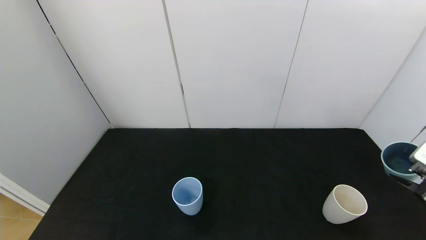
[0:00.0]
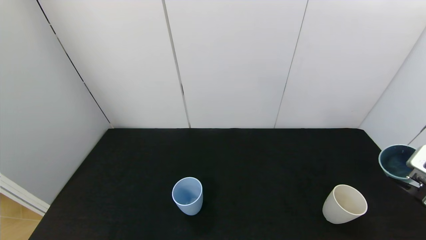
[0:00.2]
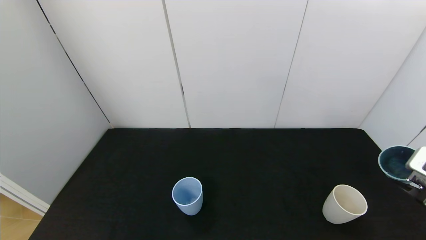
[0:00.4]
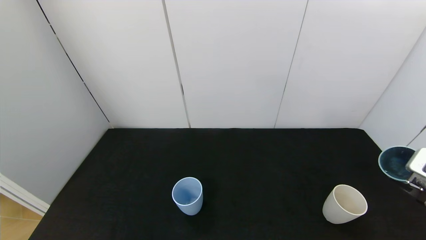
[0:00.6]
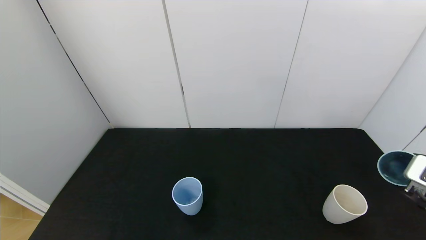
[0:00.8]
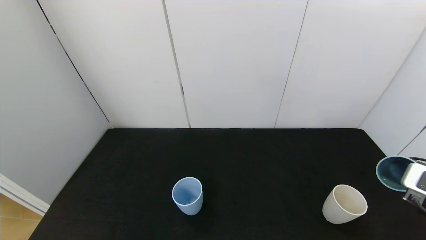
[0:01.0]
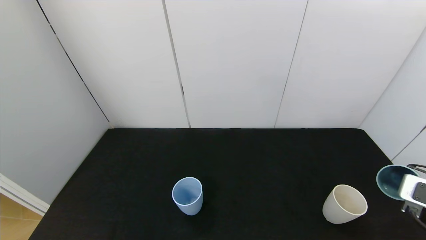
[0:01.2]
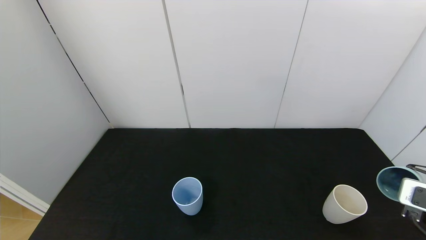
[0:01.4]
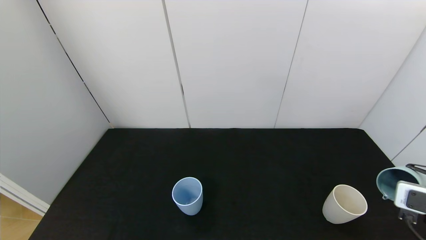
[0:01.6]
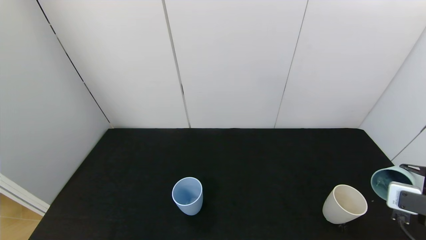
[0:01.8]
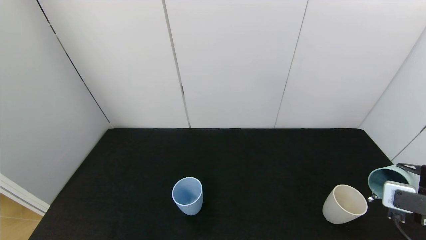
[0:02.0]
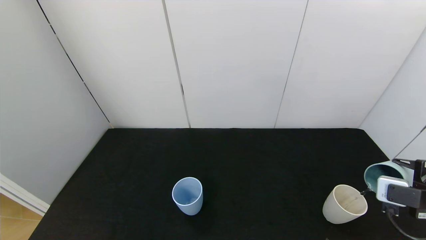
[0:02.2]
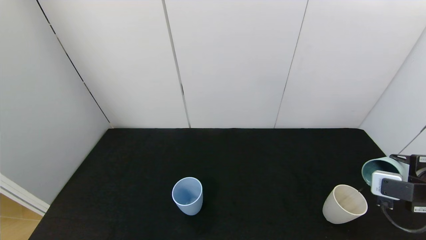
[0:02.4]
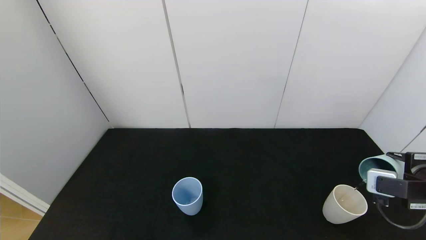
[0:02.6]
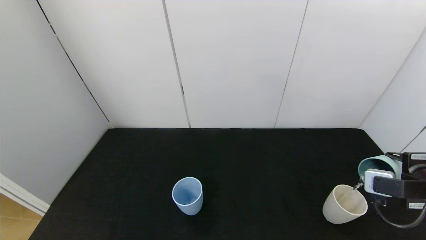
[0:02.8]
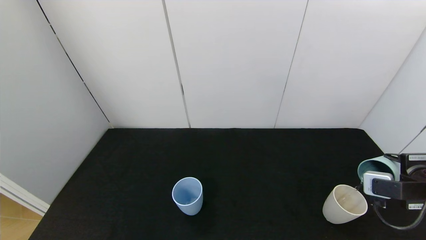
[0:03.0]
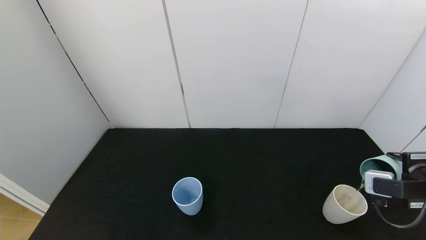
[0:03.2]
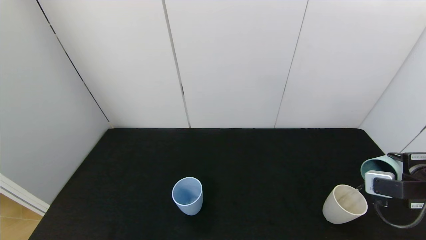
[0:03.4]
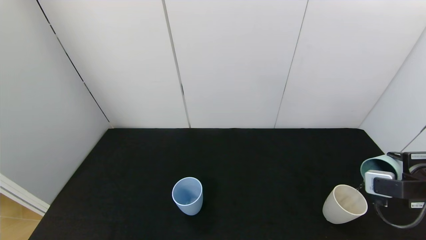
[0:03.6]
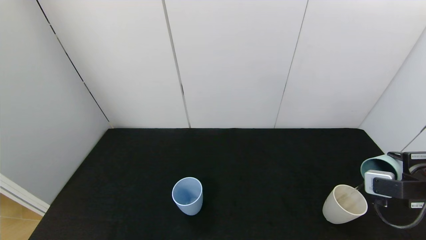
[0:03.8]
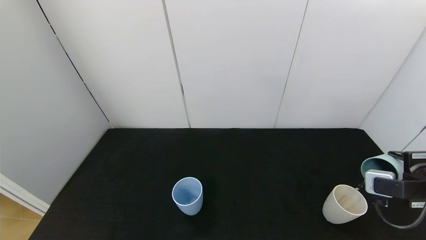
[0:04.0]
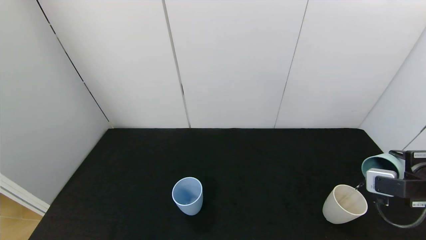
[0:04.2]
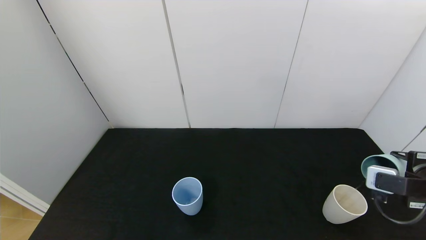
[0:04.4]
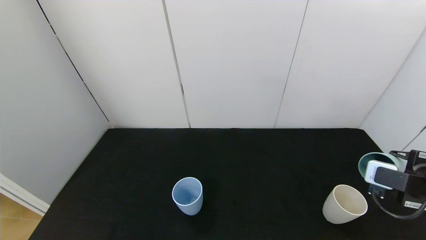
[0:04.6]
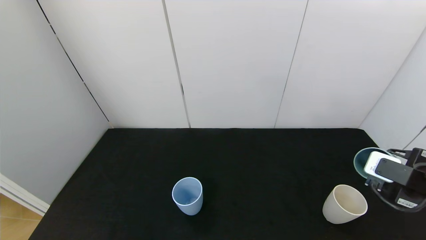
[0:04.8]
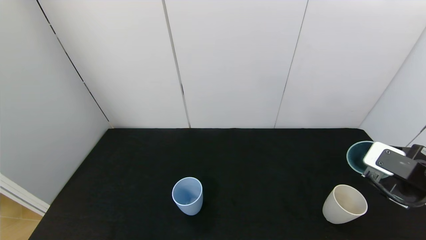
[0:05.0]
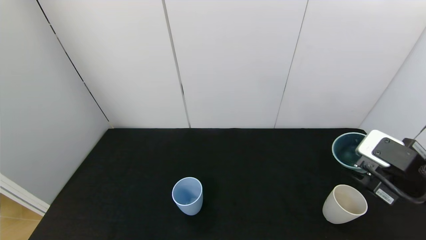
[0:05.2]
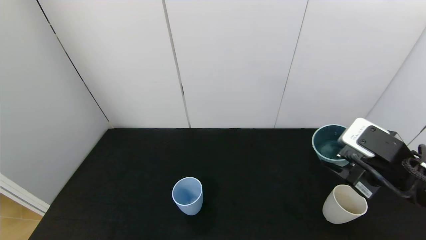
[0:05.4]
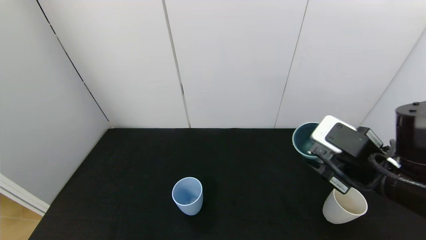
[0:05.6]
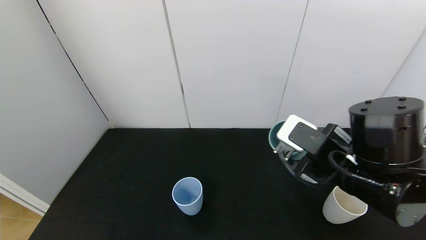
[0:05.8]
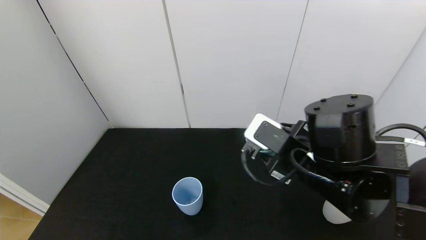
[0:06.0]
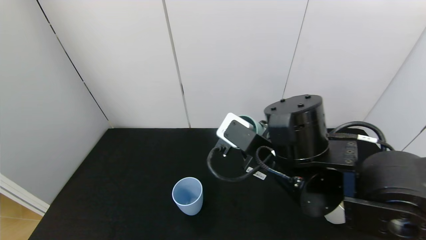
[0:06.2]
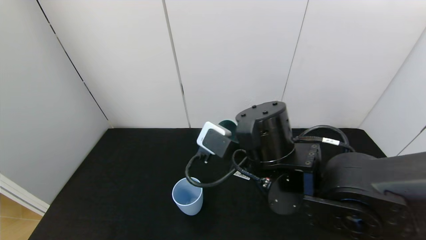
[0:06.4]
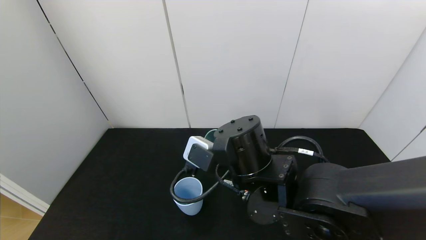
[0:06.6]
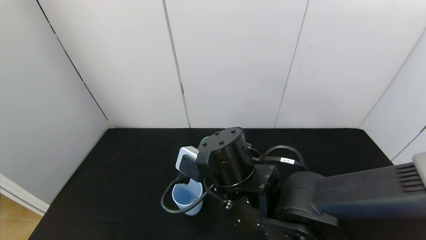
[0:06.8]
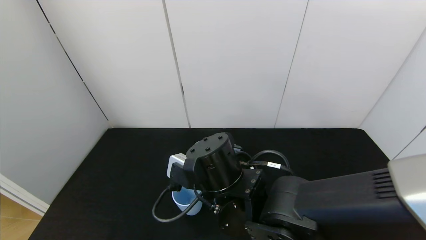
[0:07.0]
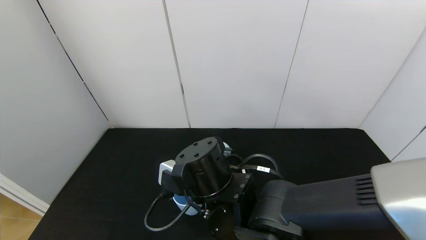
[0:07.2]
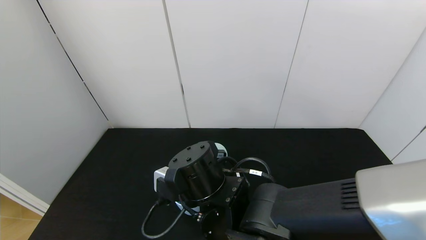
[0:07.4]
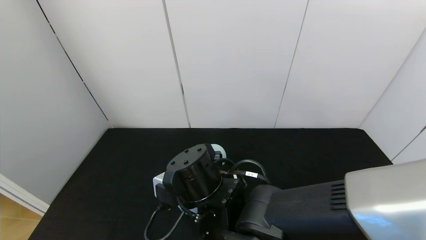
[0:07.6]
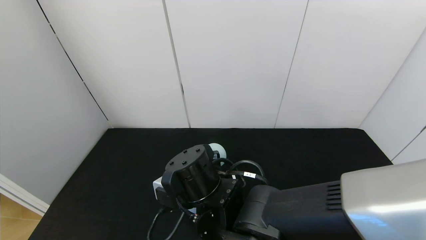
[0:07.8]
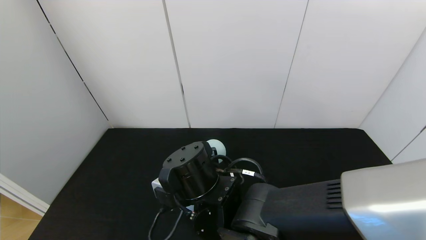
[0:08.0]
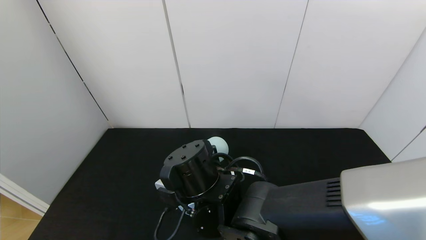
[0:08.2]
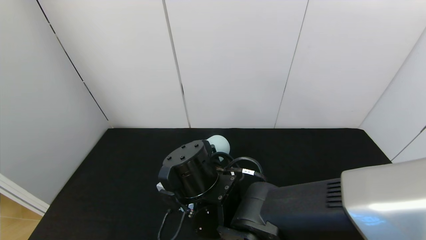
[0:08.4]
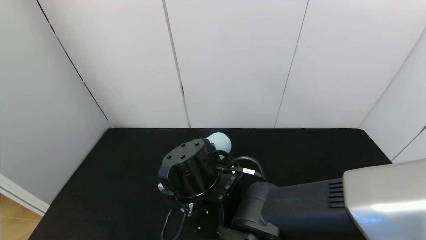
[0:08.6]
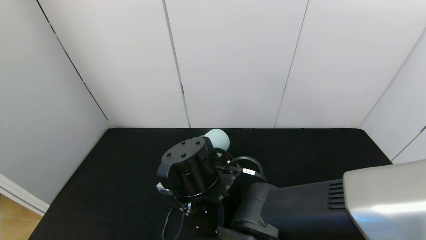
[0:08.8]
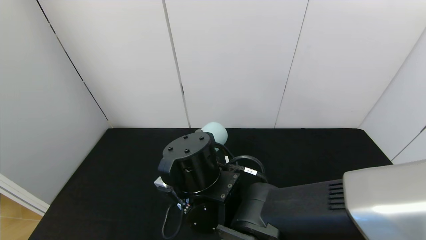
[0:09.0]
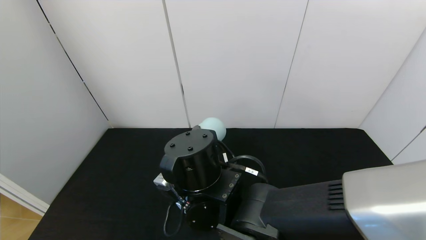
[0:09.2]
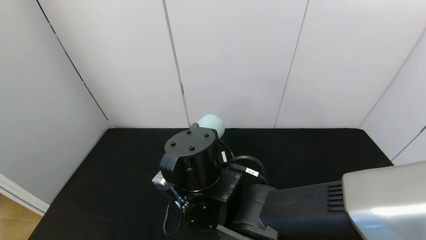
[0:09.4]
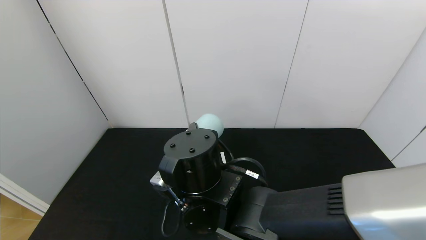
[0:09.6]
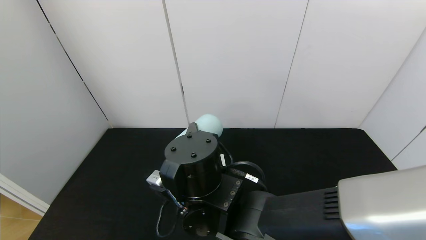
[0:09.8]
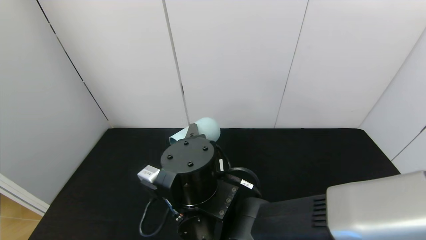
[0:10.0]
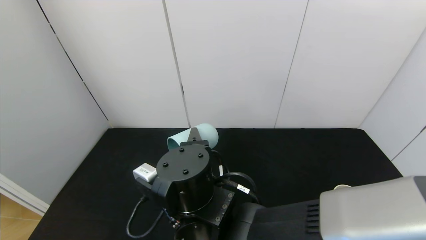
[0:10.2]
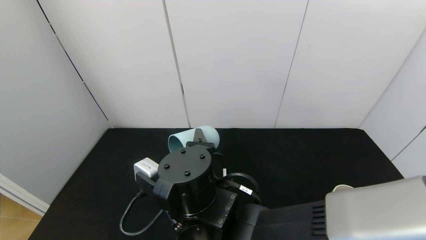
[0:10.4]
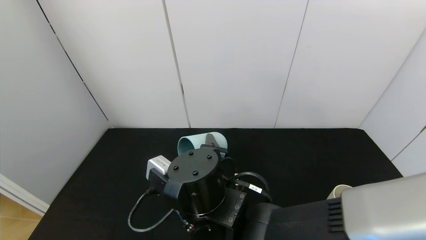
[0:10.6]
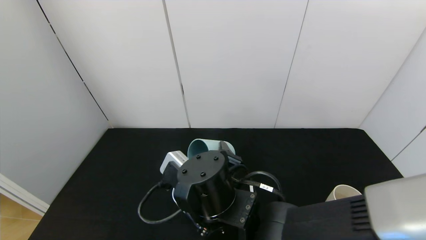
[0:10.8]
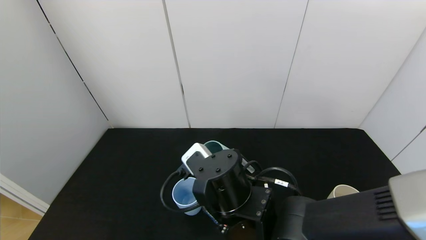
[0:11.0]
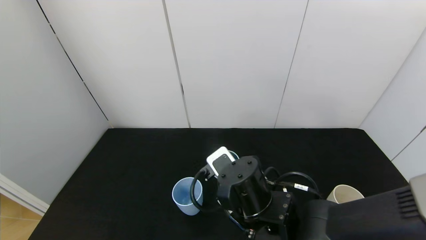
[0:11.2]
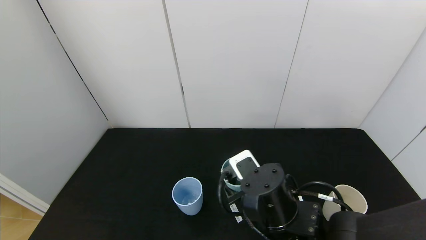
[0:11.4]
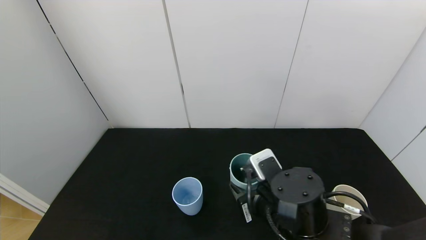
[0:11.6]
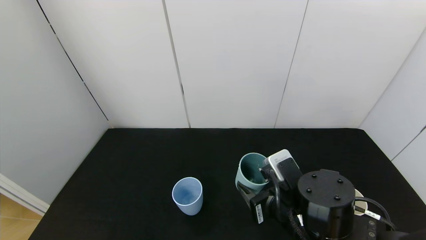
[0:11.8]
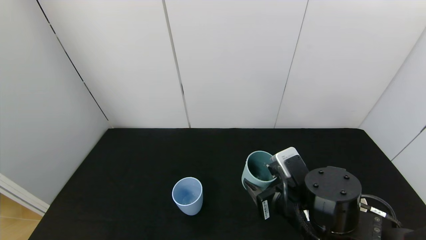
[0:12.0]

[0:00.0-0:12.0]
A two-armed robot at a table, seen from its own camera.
Task of the whole recording: use the gripper to pour the water into the other two cups on black table.
Step, 0:00.0 to 0:05.0: Pour water from green cup to white cup with the right gripper.
Step, 0:05.2 to 0:10.8: Pour water from green cup to blue cup with the right gripper.
0:01.6 to 0:03.0: The right gripper shifts by some 5 cm.
0:03.0 to 0:04.4: The grippers move only a little.
0:04.4 to 0:06.0: The right gripper heads to the left, covering some 25 cm.
0:06.0 to 0:07.6: The right gripper travels to the left and downward by roughly 15 cm.
0:10.4 to 0:12.0: The right gripper travels to the right by approximately 20 cm.

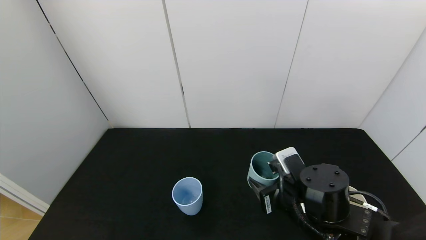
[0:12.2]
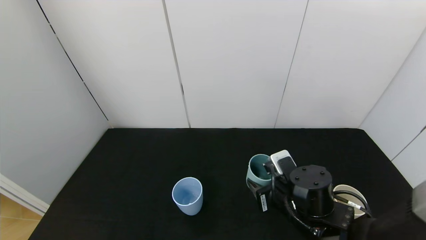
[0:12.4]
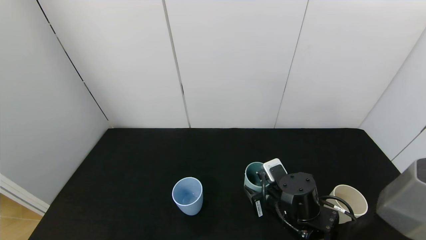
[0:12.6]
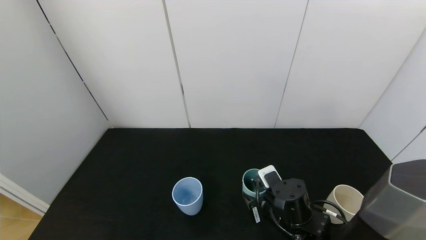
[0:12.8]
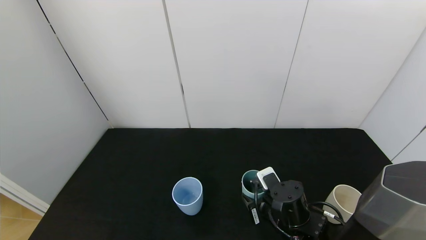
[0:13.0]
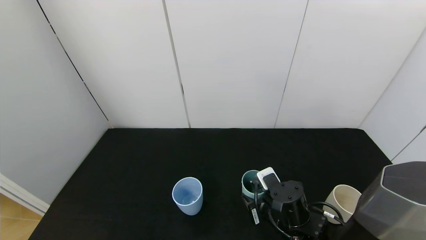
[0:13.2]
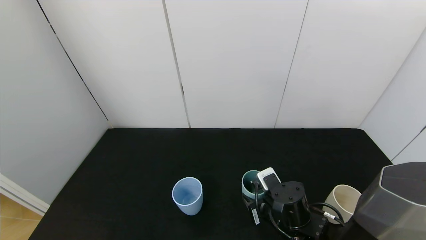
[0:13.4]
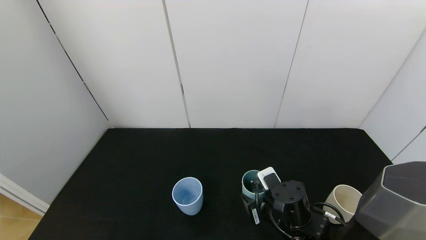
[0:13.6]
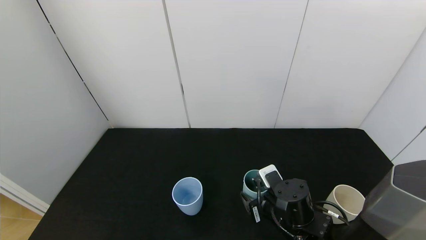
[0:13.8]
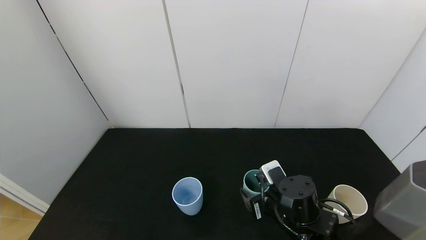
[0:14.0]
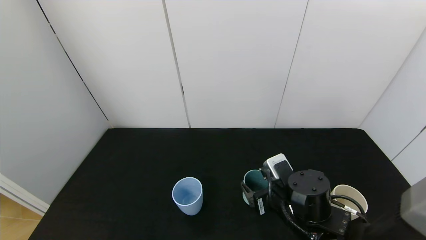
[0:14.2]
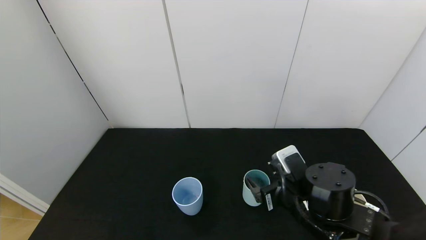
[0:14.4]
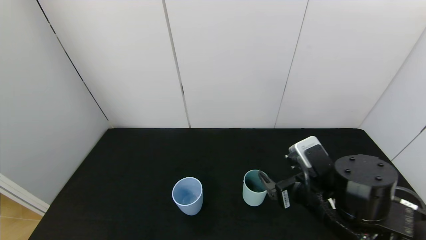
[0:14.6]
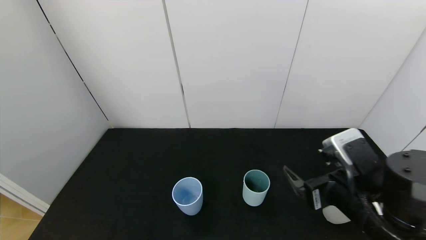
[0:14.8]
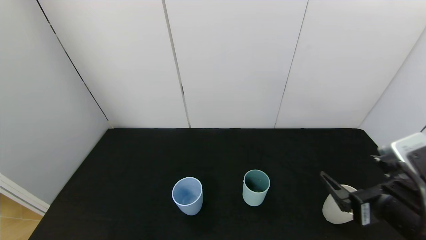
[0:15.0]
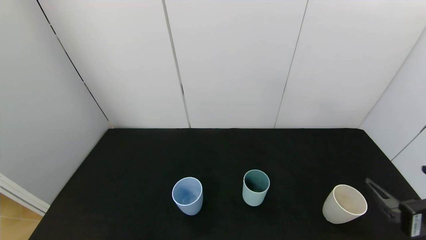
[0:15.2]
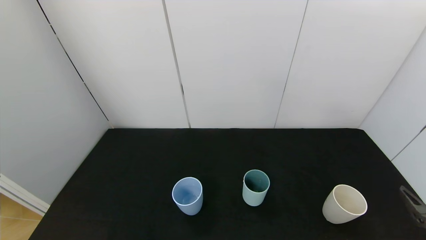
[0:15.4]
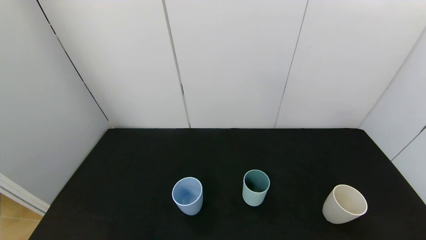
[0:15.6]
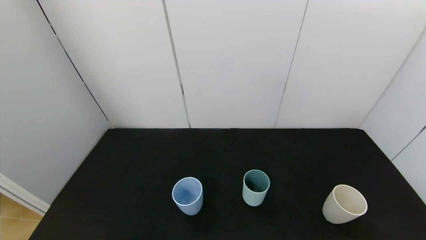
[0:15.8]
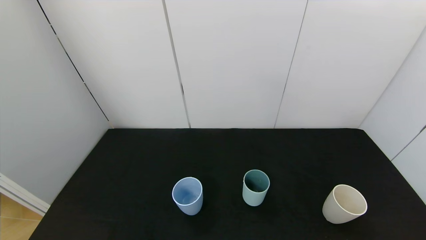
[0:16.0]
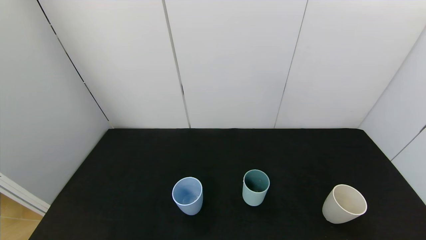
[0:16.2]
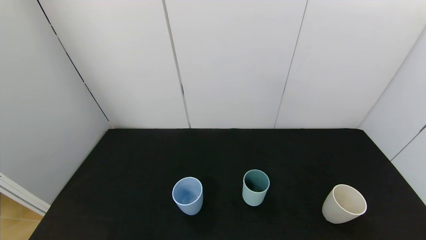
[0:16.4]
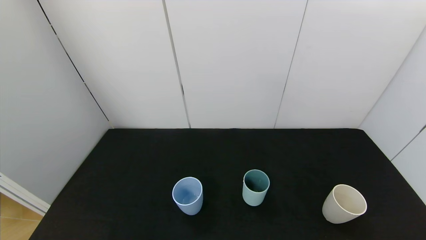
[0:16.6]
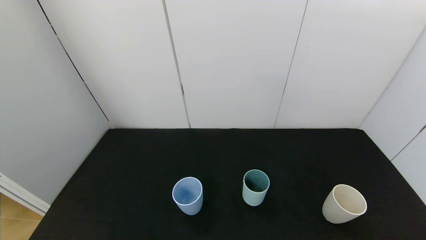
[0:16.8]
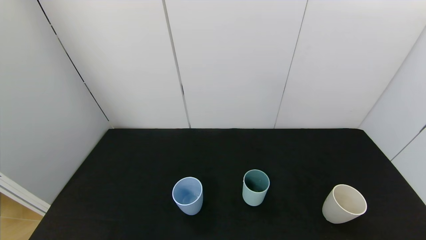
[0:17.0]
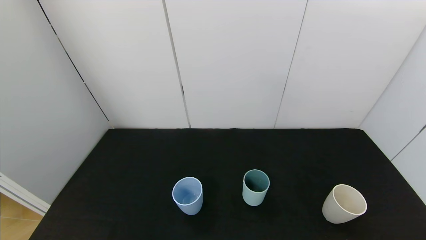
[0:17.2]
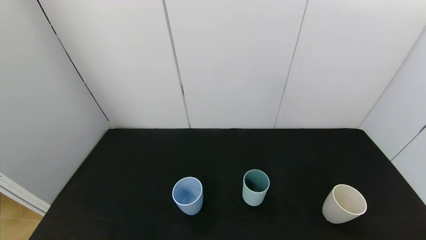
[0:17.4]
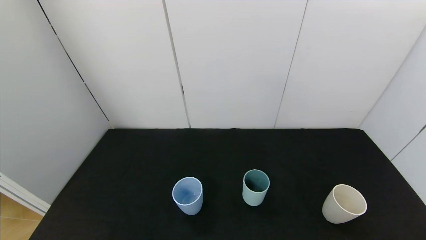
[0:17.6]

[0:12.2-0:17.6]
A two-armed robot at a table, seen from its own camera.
Task of the whole recording: use the gripper to pour the water into the other two cups on black table.
Step, 0:12.2 to 0:14.2: Place the green cup with the right gripper.
0:12.2 to 0:13.6: The right gripper goes some 5 cm downward, and opens.
0:13.6 to 0:15.0: The right gripper heads upward, backward and to the right, covering approximately 25 cm, and opens up.
0:15.0 to 0:16.2: The right gripper travels backward and to the right by about 20 cm.
